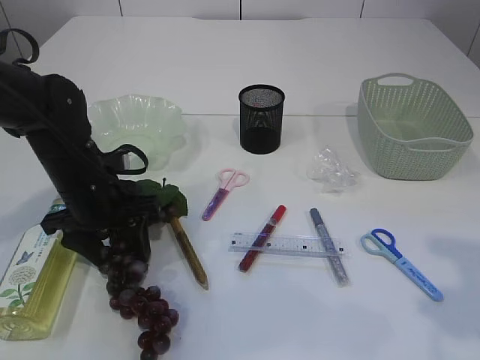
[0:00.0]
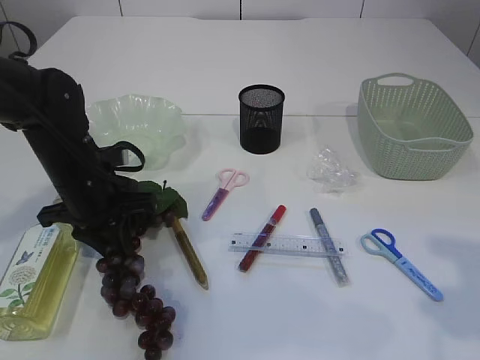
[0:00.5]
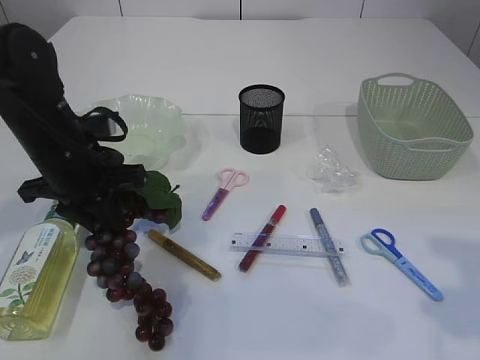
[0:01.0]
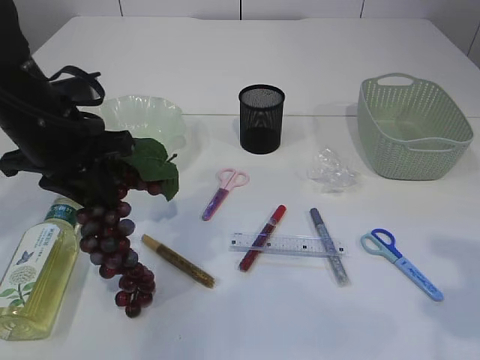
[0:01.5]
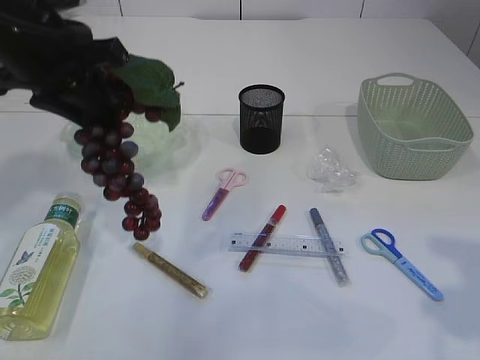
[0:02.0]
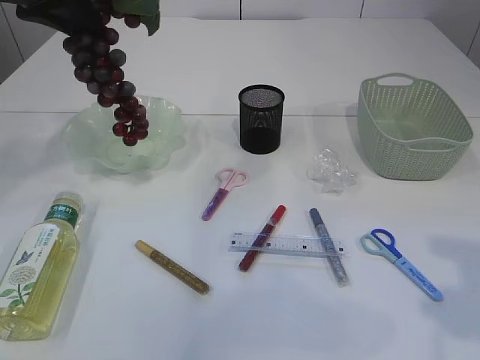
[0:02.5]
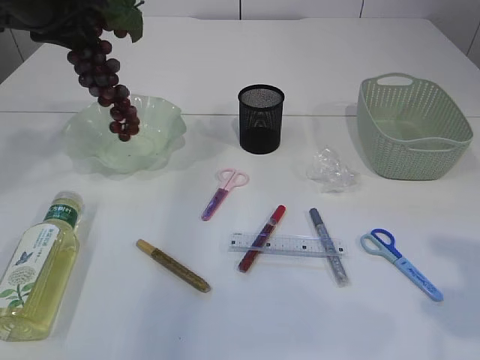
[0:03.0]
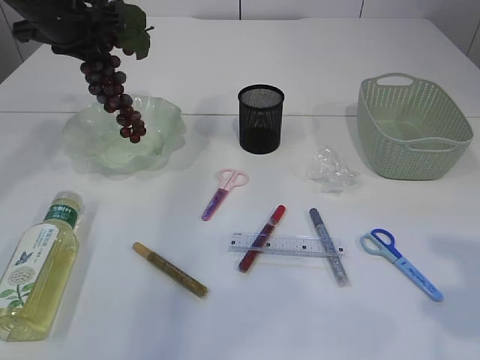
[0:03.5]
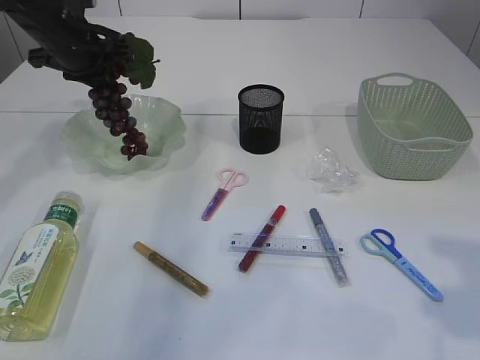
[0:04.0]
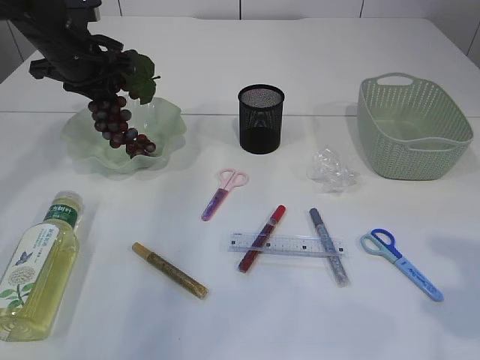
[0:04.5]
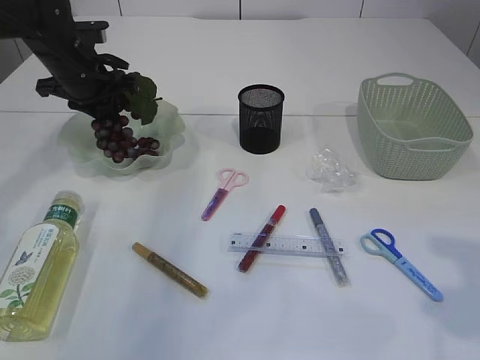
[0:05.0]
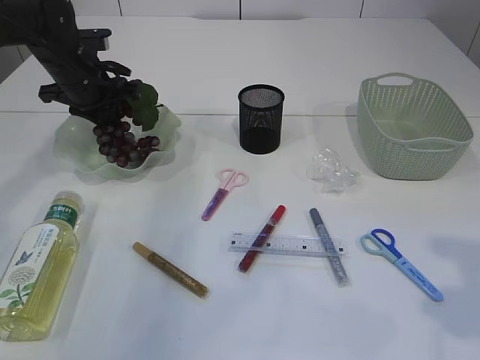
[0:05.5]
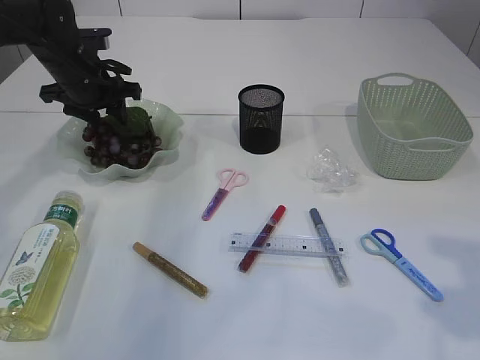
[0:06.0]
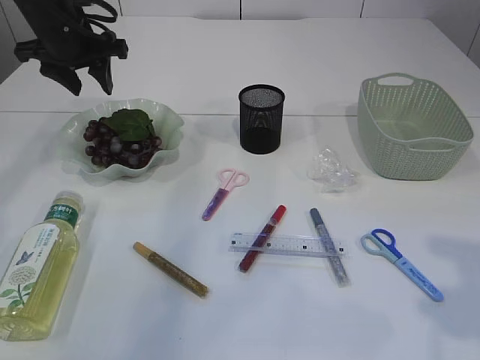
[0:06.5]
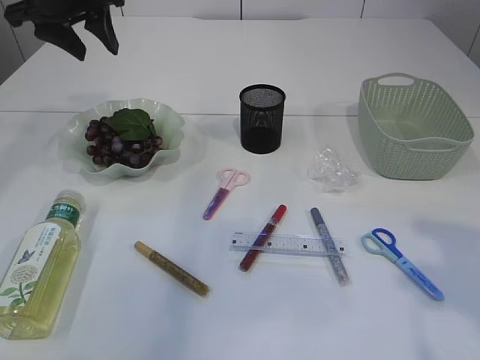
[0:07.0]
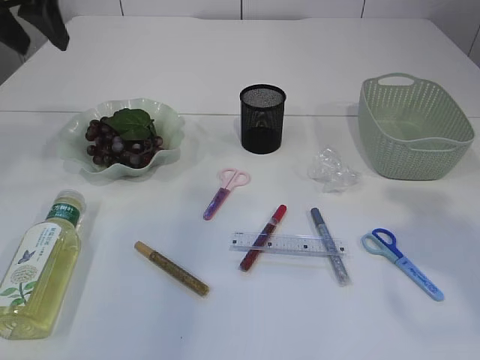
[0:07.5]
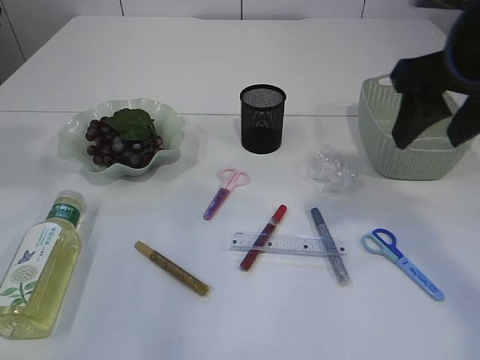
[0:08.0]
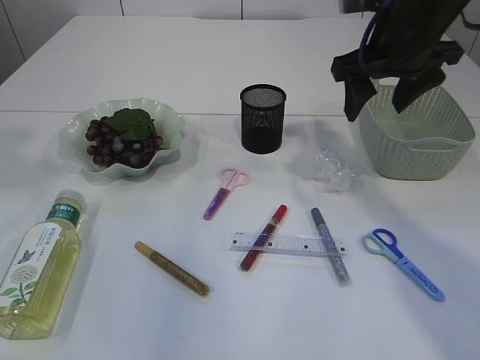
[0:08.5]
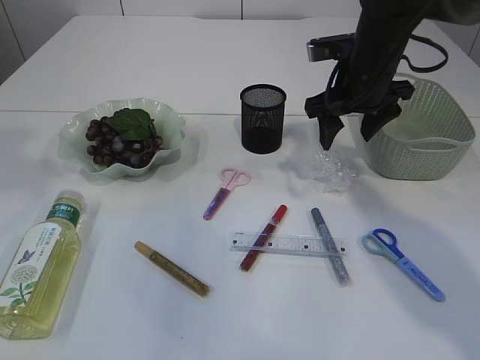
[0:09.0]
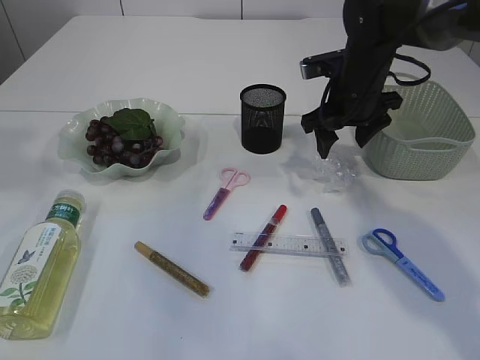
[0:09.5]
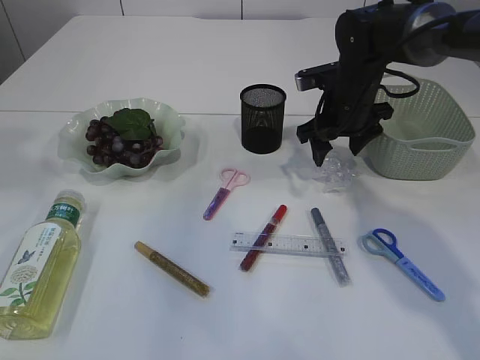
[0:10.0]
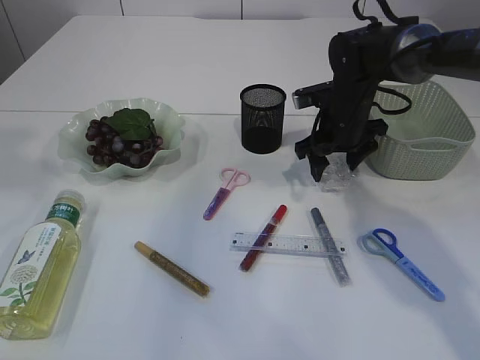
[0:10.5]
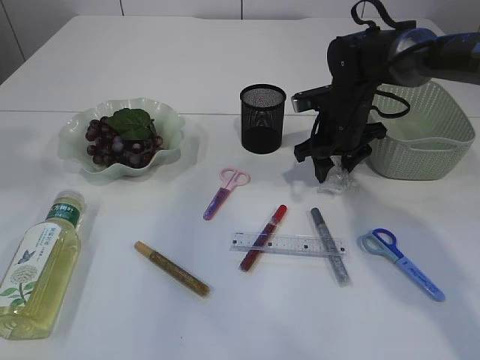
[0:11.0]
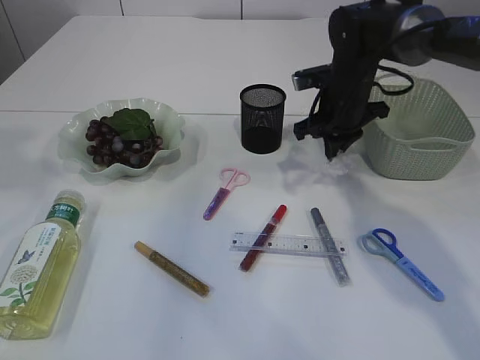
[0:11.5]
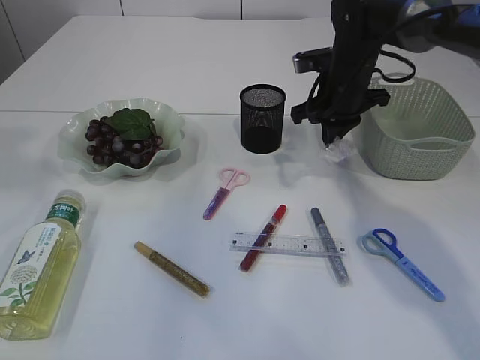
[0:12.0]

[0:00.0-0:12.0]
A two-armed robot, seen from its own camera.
Step, 0:00.0 to 0:02.0: Pick up the grapes.
Step, 0:02.5 to 0:06.0: Place the grapes in the plate.
Step, 0:06.5 to 0:12.0: Pick up the plastic.
0:00.0 to 0:02.0: The left gripper moves upward, approximately 20 cm, and closes its fingers.
0:02.0 to 0:04.0: The left gripper is displaced forward and downward by about 15 cm.
0:04.0 to 0:06.0: The left gripper goes approximately 5 cm downward, and opens.
0:06.0 to 0:08.0: The left gripper travels upward and backward by roughly 30 cm, while the right gripper is displaced forward and to the left by roughly 15 cm.
0:08.0 to 0:10.0: The right gripper goes approximately 25 cm forward and downward.
0:10.0 to 0:12.0: The right gripper closes its fingers.

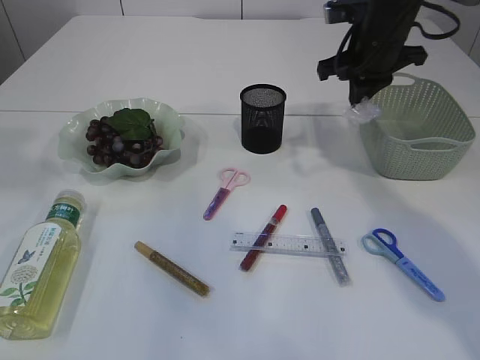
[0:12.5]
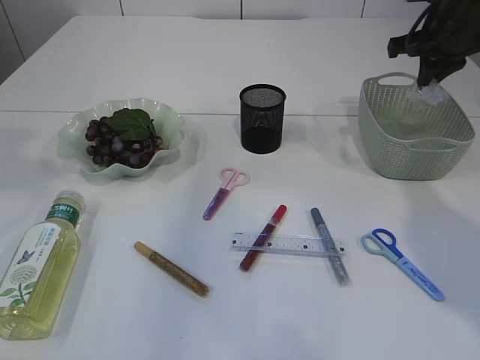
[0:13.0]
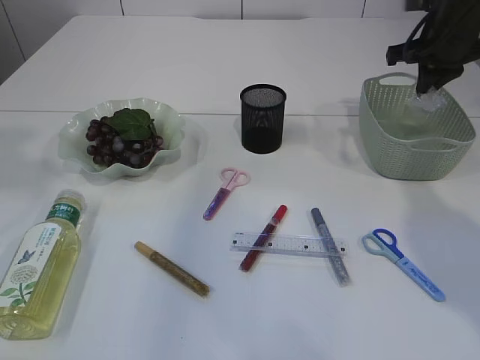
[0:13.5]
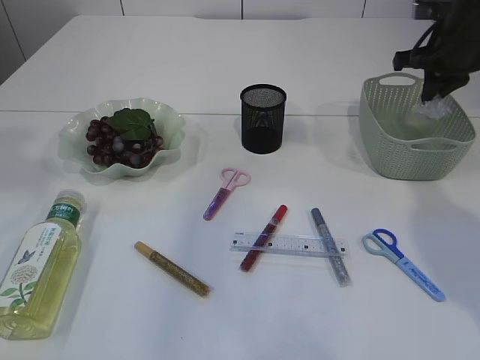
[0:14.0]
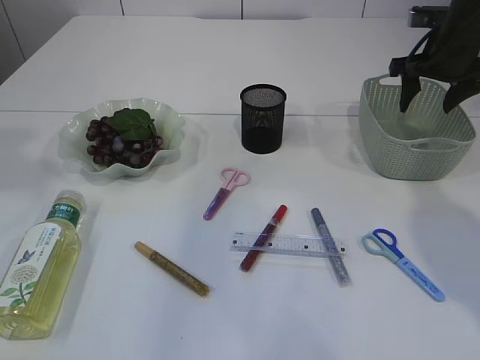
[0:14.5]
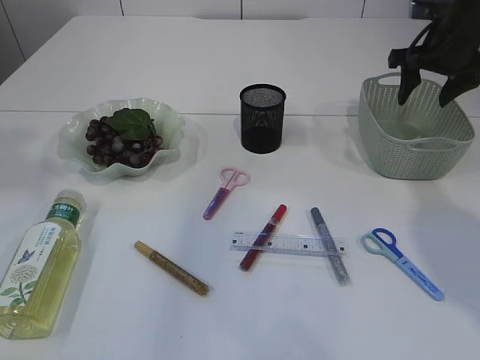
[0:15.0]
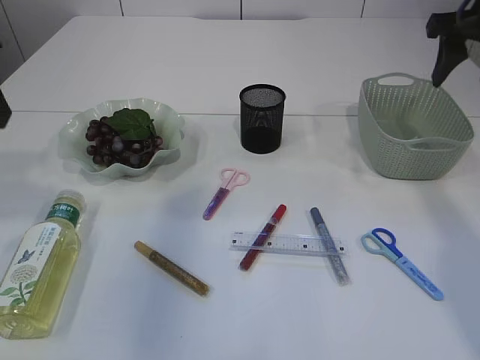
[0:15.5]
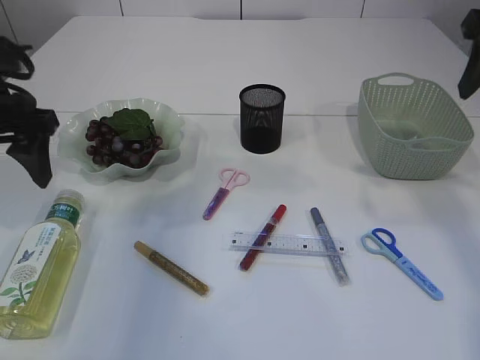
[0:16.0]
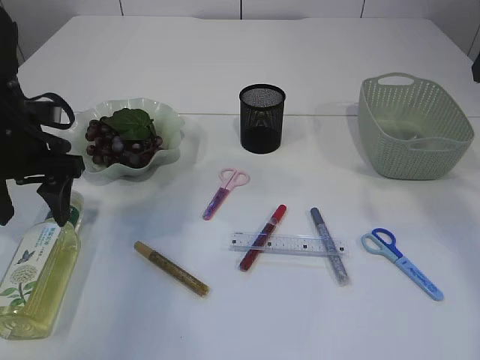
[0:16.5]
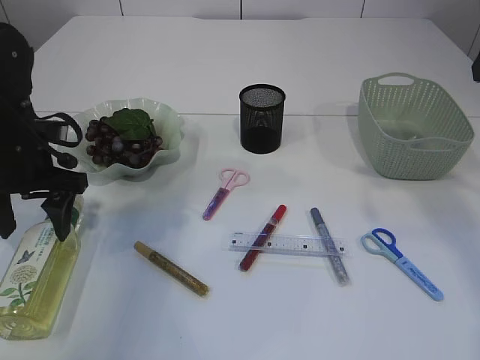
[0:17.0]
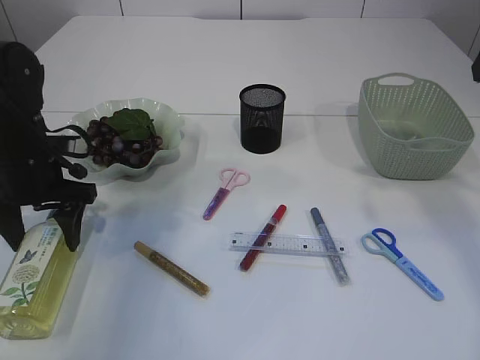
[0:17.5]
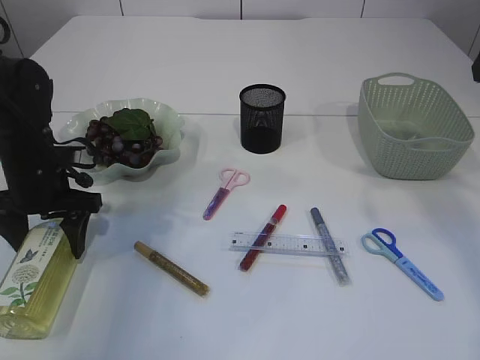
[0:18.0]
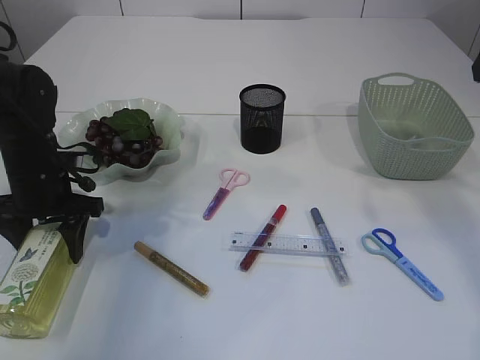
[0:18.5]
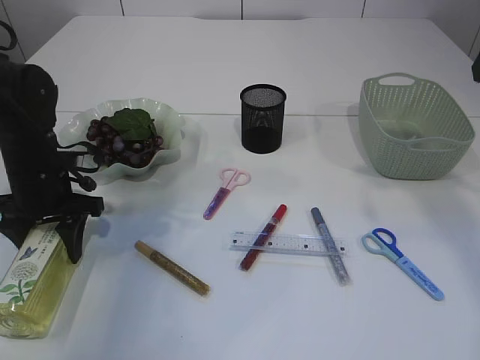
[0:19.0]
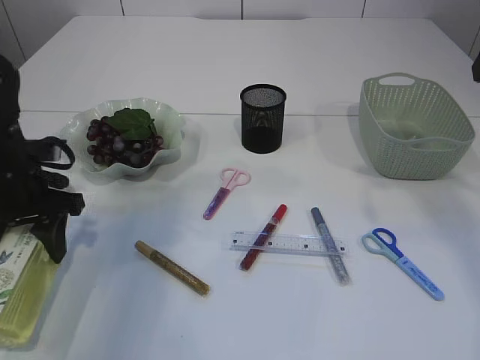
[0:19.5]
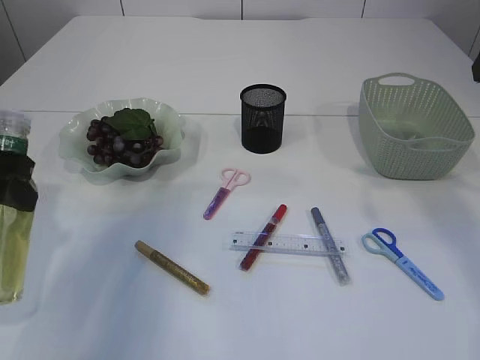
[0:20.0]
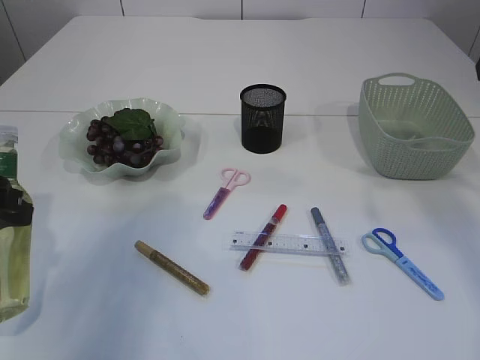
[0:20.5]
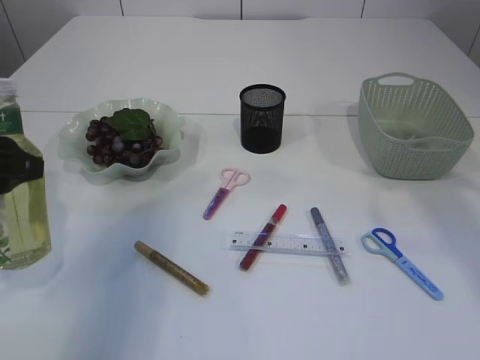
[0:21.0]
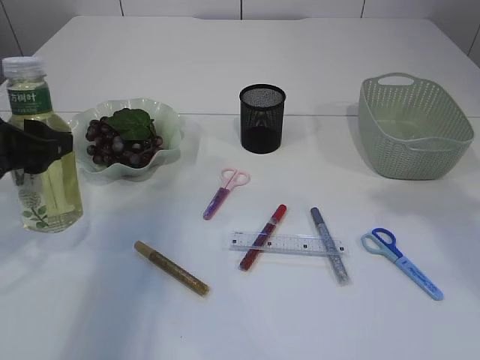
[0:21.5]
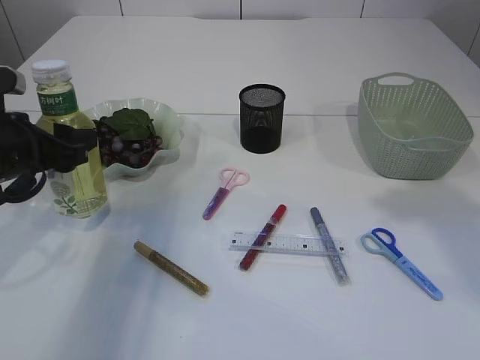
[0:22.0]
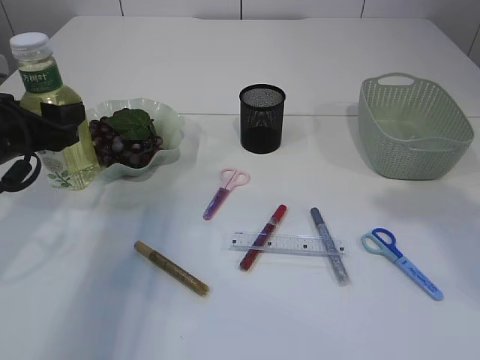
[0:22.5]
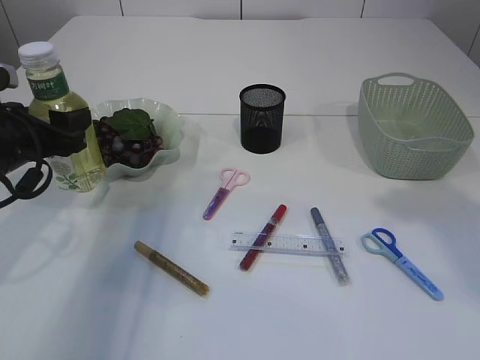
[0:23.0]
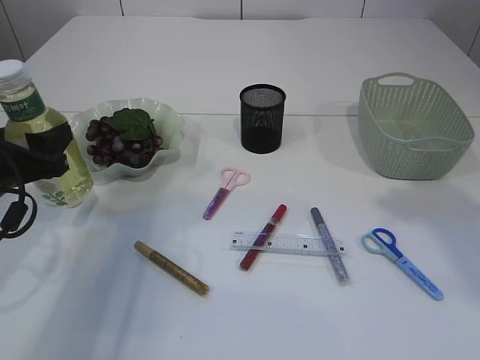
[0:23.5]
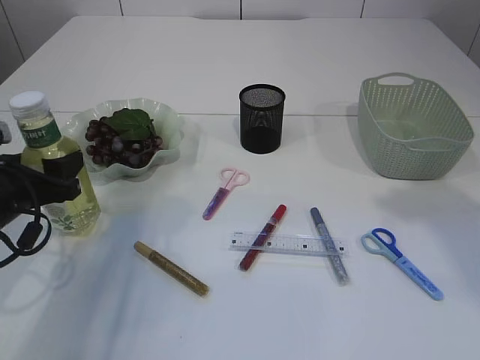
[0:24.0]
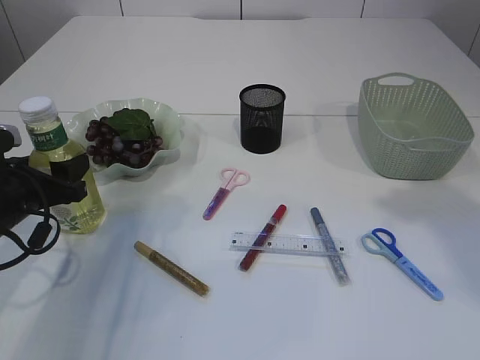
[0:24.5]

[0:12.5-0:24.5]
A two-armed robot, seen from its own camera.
Step, 0:12.5 to 0:15.0: Place the plastic in the basket.
Step, 0:15.5 to 0:19.5: Pick up the bottle with the left arm.
0:12.5 to 0:14.5: The right gripper is displaced to the right by approximately 10 cm, and opens its fingers.
0:14.5 to 0:16.5: The right gripper shifts about 20 cm backward and upward, while the left gripper is displaced downward by some 25 cm, and opens up.
0:16.5 to 0:18.5: The left gripper shifts some 10 cm downward.
0:18.5 to 0:20.5: The left gripper heads backward and upward, covering approximately 15 cm.
0:20.5 to 0:22.5: The left gripper goes about 10 cm forward.
0:22.5 to 0:24.5: The left gripper travels downward by approximately 10 cm.

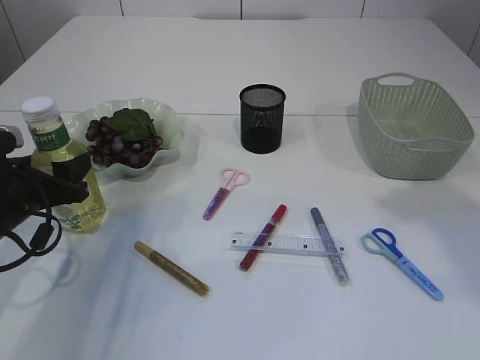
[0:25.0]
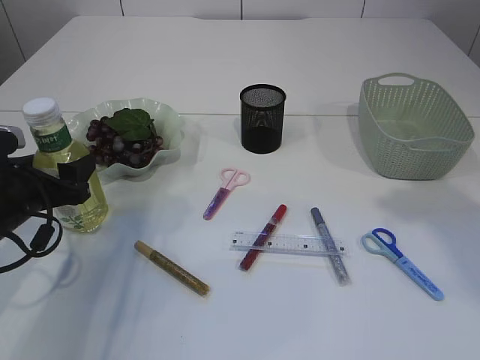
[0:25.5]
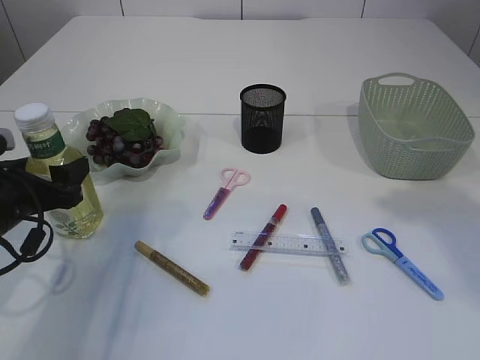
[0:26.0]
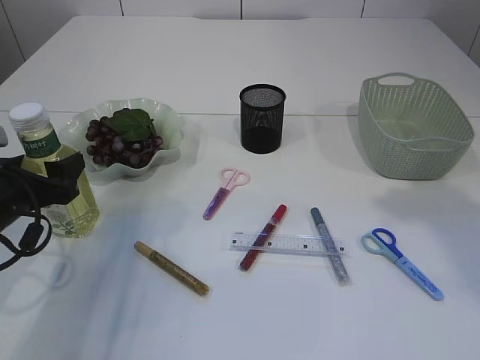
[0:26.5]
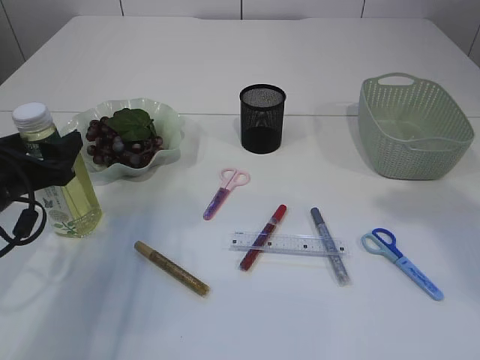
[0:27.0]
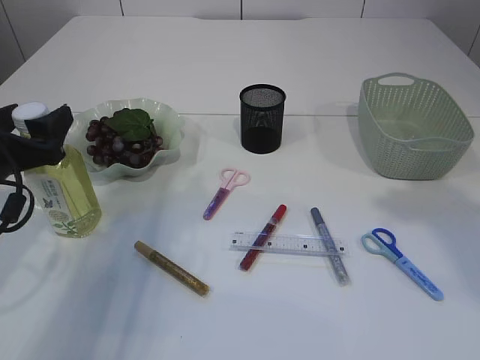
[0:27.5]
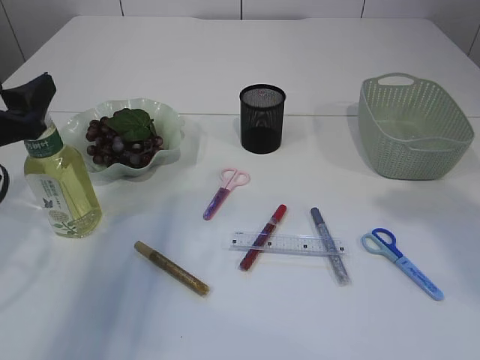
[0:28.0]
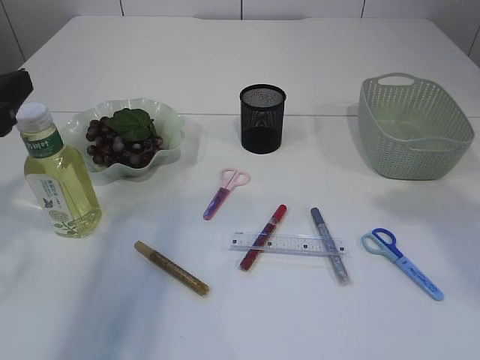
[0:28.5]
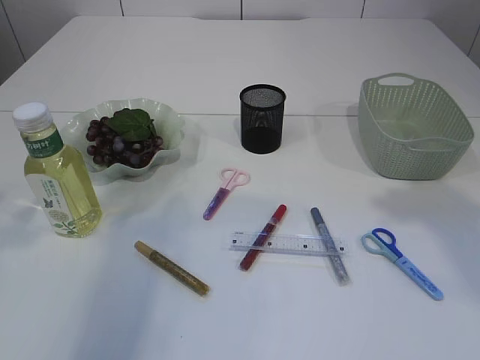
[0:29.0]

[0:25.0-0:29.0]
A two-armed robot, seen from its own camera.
Step, 0:25.0 to 0:28.5: Place the bottle.
0:25.0 to 0:27.0: The grippers stay close to where they were, moving slightly.
0:27.0 to 0:29.0: The left gripper shifts roughly 20 cm upward and backward.
